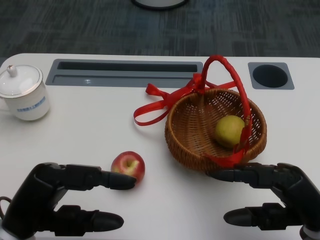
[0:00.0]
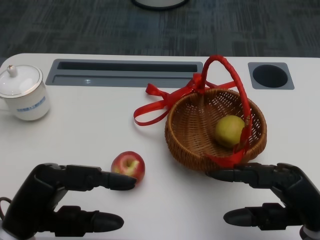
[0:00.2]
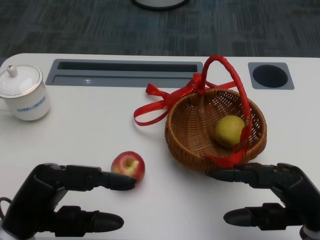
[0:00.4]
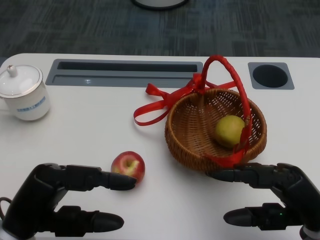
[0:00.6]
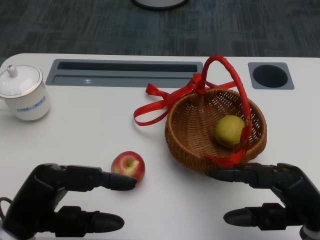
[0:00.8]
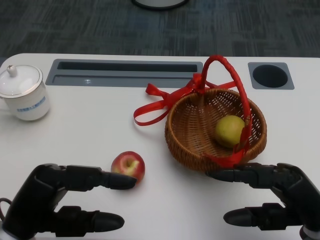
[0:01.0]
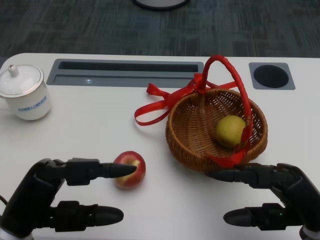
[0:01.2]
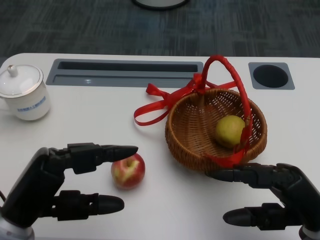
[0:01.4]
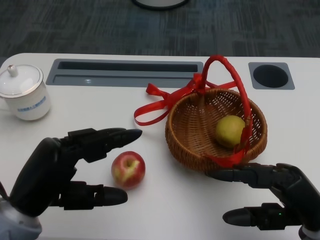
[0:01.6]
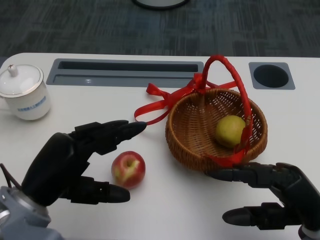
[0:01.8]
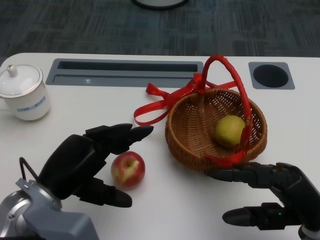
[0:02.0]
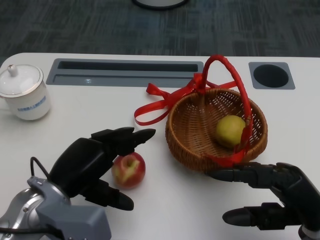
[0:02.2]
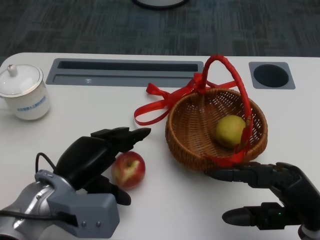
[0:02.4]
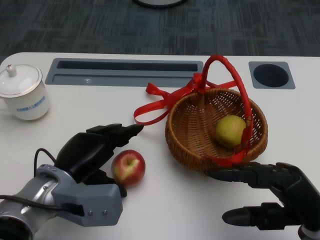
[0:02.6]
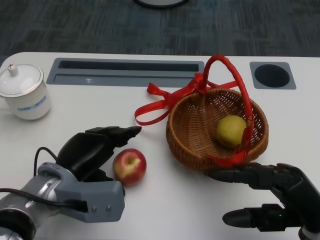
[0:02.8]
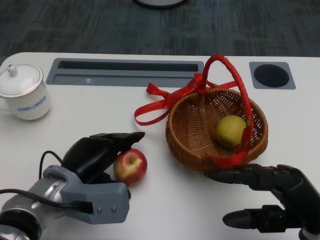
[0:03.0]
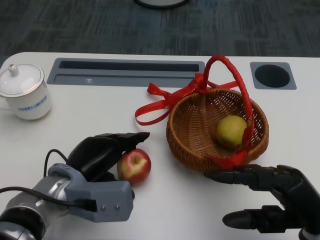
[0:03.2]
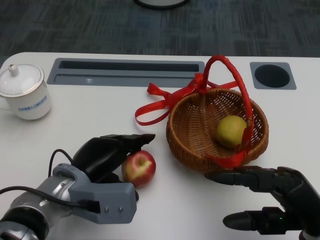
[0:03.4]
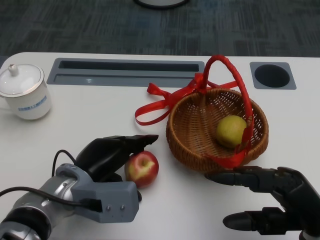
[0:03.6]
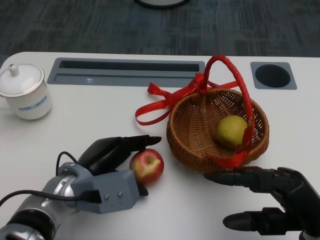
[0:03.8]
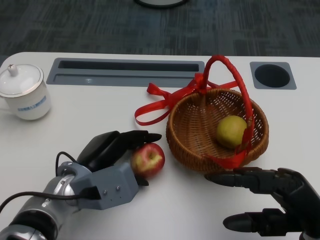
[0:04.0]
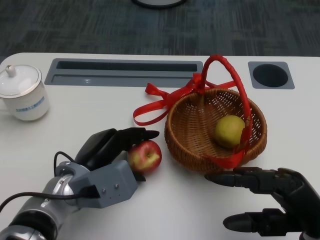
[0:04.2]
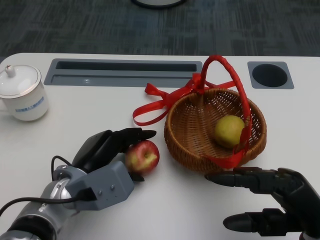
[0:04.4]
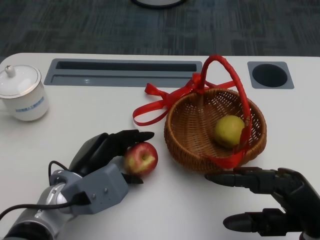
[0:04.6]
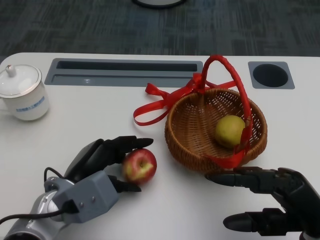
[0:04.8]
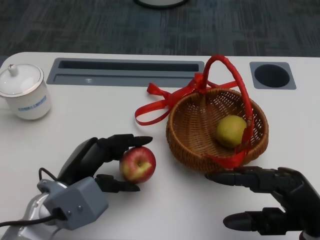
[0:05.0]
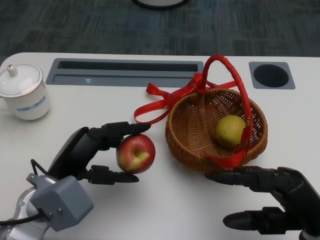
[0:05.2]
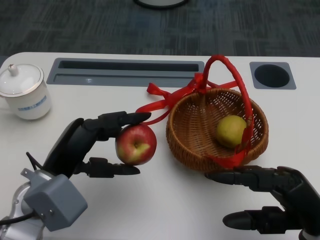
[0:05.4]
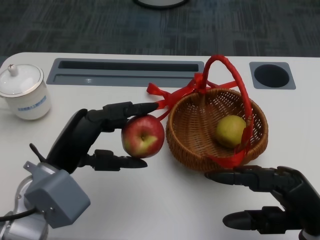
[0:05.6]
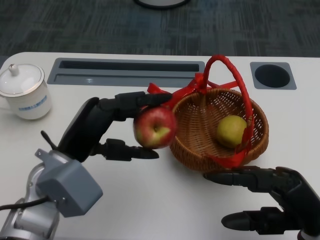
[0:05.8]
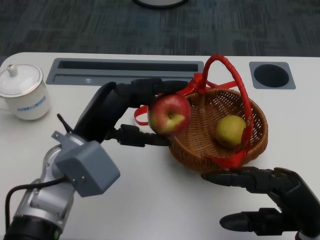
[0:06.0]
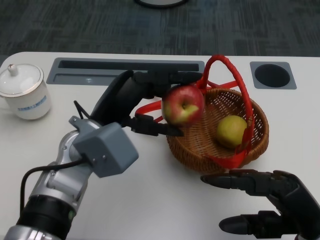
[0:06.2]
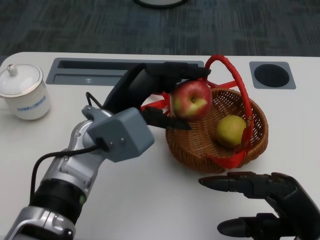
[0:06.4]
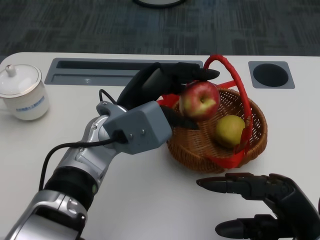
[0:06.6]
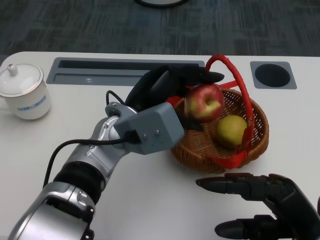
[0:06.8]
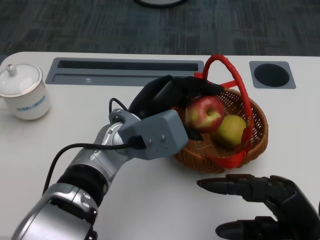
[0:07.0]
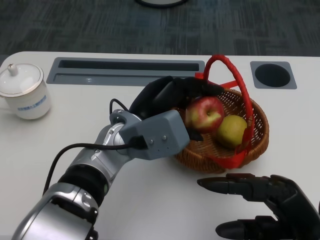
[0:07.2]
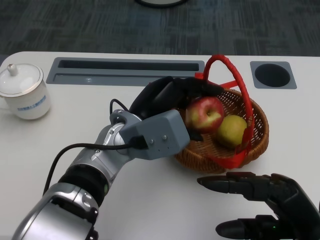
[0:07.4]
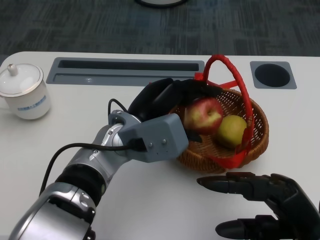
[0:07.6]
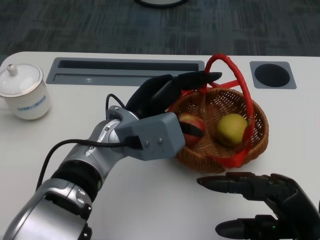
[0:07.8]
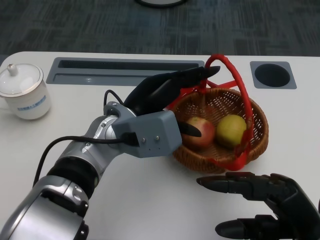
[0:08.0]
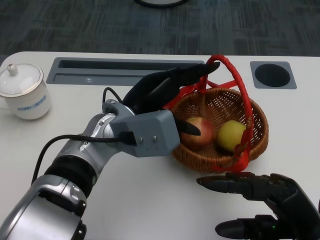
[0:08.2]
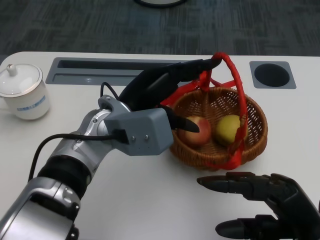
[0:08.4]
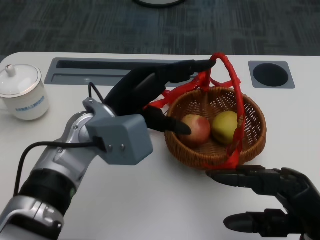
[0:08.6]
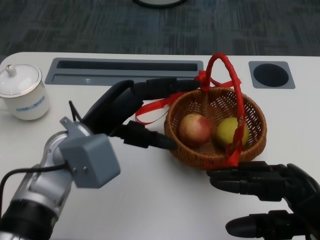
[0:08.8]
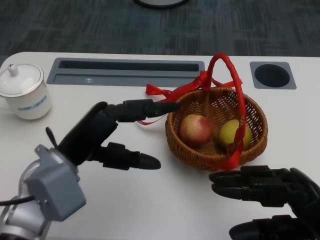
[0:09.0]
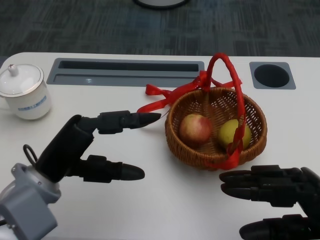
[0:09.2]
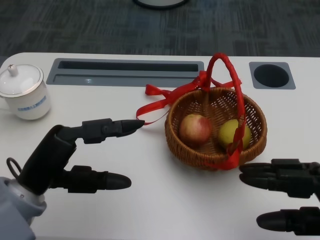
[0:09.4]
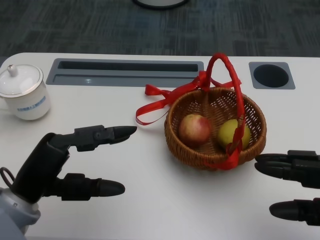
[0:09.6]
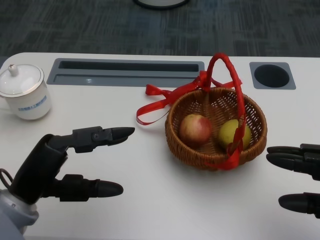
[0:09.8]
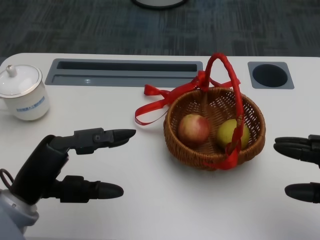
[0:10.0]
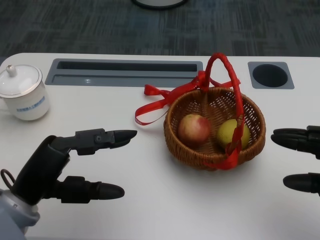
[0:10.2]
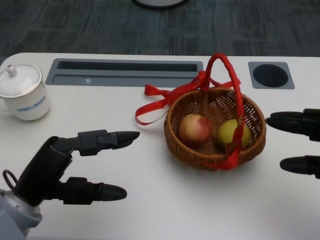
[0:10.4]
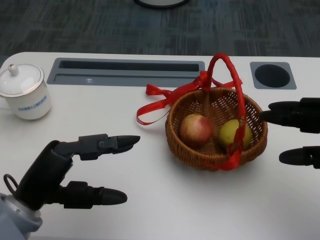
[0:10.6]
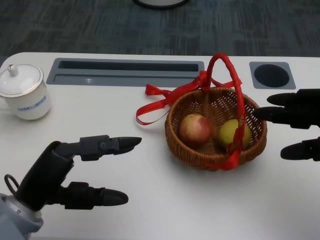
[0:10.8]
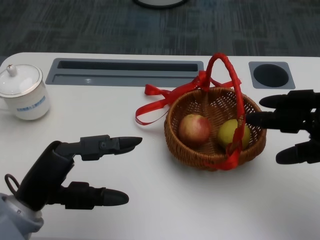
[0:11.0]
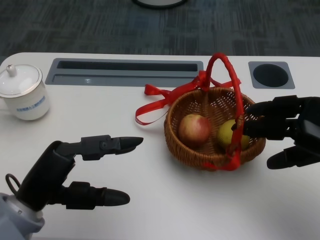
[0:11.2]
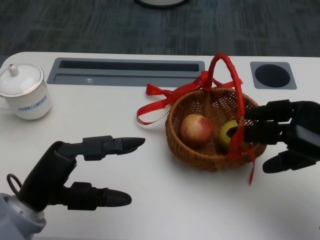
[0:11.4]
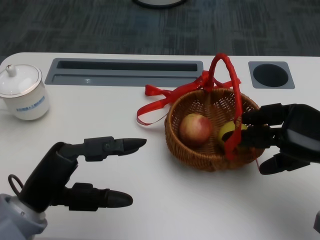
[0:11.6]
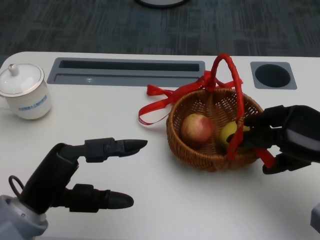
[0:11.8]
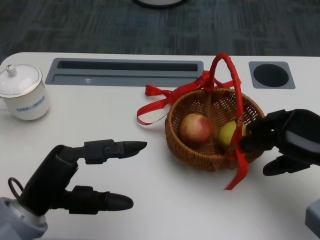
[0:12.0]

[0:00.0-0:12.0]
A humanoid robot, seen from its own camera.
Step, 1.0 to 3.8 s: Grasp the apple with the left gripper.
Step, 4.0 to 6.8 s: Place the apple into the basket with the left gripper.
Step, 7.0 to 10.4 s: Grasp the basket with the right gripper.
1.6 to 3.0 s: The left hand goes roughly 10 cm forward and downward.
4.4 to 6.0 s: The left hand travels upward by roughly 10 cm.
6.0 to 7.6 s: The left hand shifts approximately 10 cm to the right.
7.6 to 9.0 s: The left hand goes some 10 cm to the left.
9.0 to 10.4 s: The left hand is displaced to the left and backward by some 10 cm; the right hand goes some 5 cm to the right.
10.4 to 12.0 s: The right hand heads forward, covering approximately 5 cm.

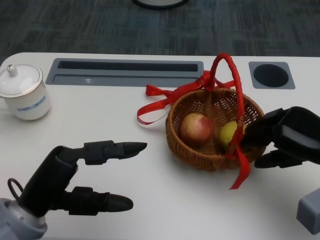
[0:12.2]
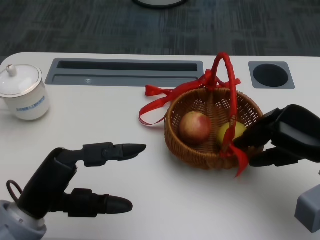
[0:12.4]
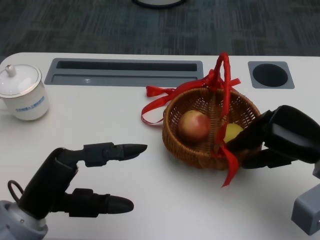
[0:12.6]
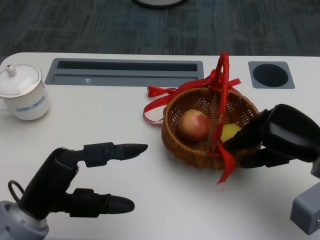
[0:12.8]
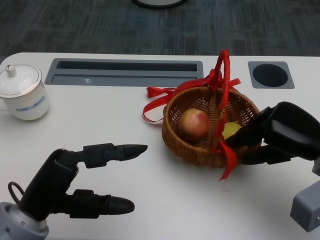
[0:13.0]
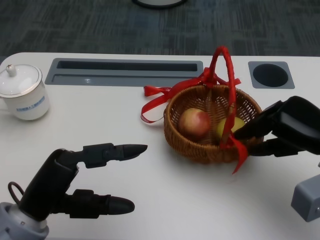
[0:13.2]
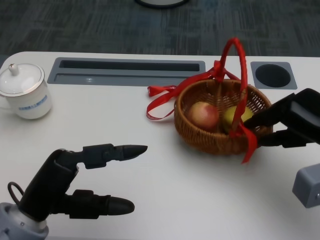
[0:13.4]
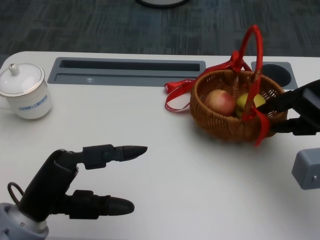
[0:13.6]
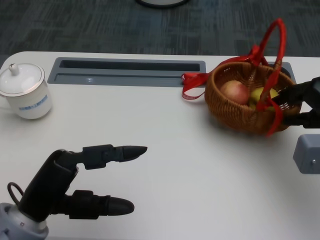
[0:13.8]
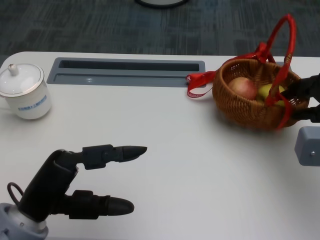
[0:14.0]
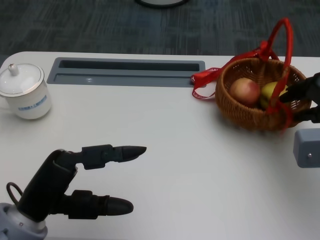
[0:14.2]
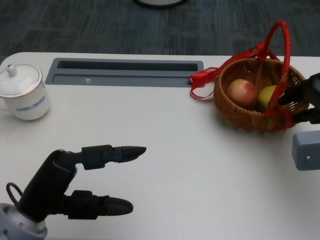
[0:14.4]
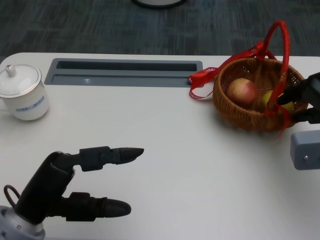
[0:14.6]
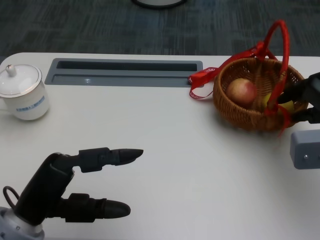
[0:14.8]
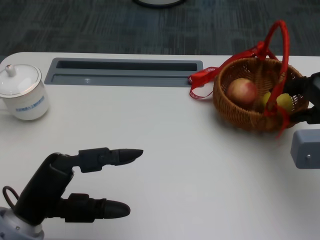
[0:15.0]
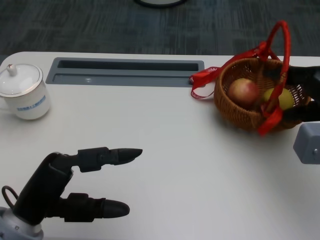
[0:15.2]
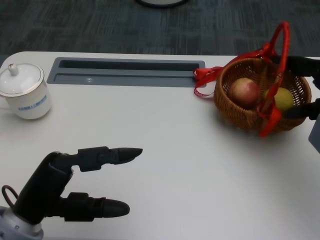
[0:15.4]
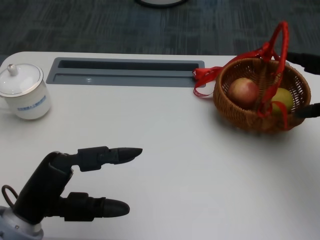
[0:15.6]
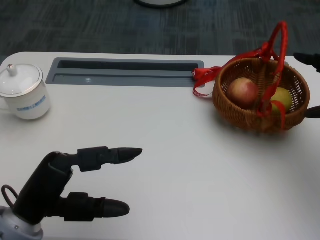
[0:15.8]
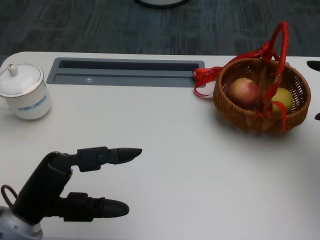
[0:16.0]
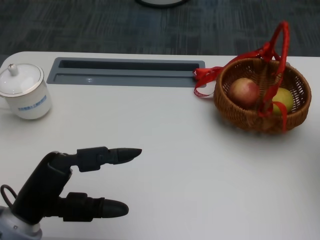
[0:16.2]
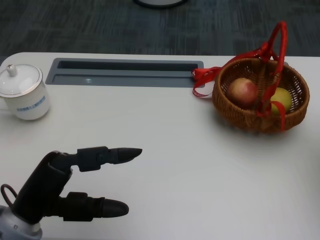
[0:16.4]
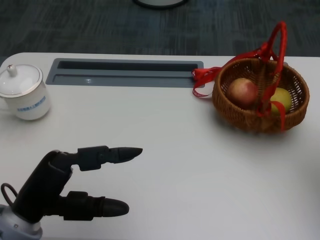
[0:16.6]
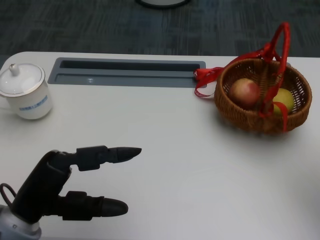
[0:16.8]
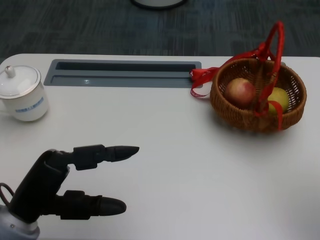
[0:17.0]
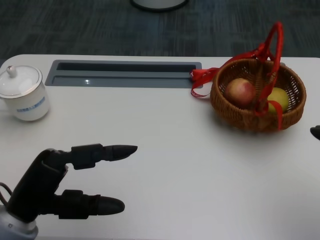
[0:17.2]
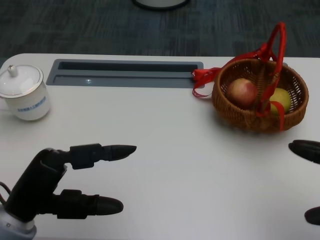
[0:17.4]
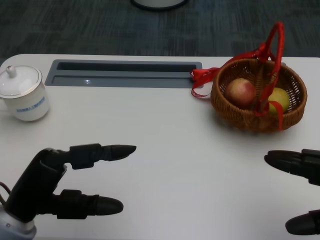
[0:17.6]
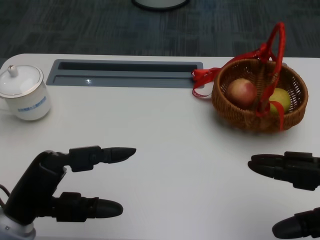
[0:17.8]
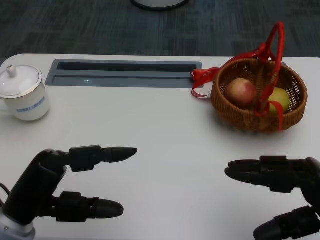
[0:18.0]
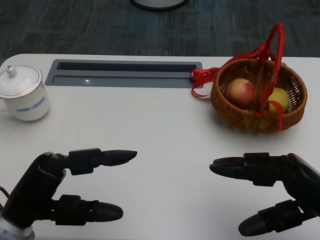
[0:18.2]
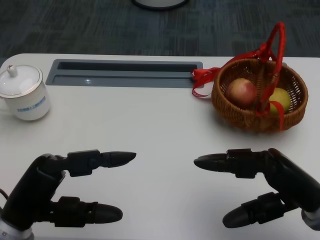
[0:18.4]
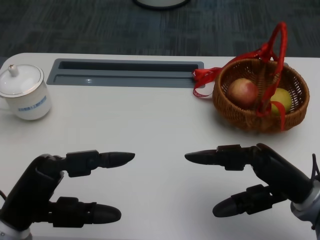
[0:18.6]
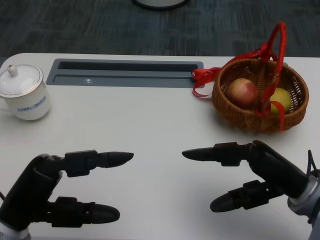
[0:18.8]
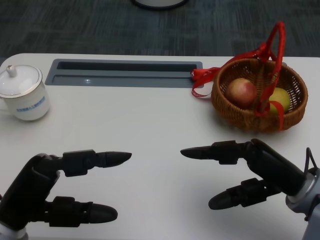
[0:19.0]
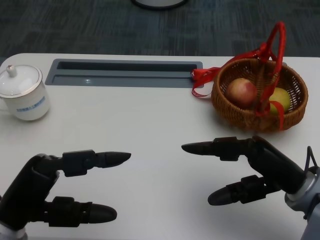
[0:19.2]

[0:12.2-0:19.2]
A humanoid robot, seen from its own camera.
13.6 to 15.0 s: The hands stay close to where they were, moving slightly.
15.0 to 16.4 s: The right hand travels to the right by roughly 10 cm.
16.4 to 17.8 s: The right hand moves backward and to the left, approximately 15 cm.
17.8 to 19.2 s: The right hand is displaced to the left and forward by approximately 10 cm.

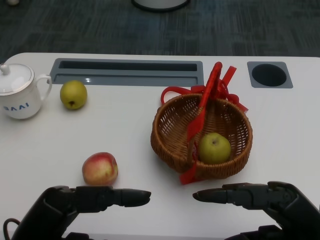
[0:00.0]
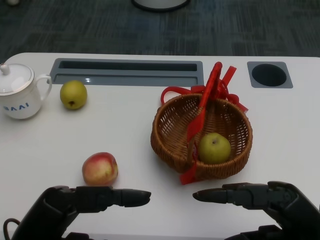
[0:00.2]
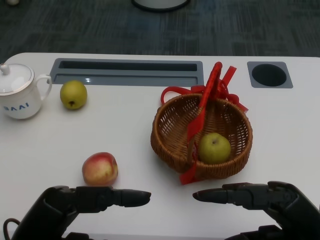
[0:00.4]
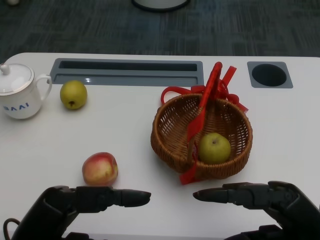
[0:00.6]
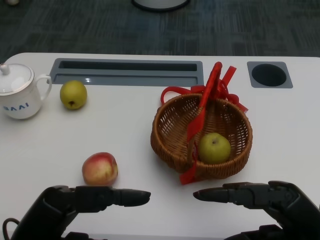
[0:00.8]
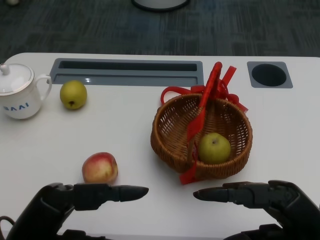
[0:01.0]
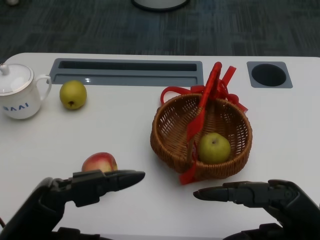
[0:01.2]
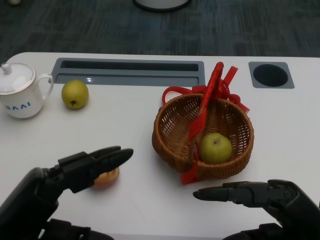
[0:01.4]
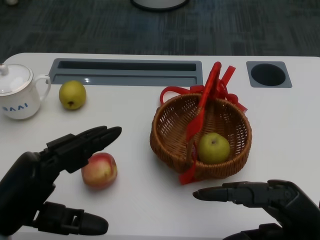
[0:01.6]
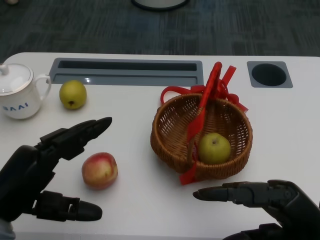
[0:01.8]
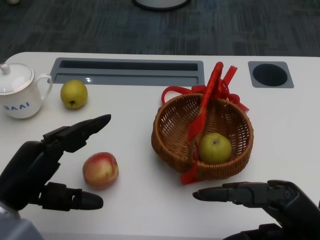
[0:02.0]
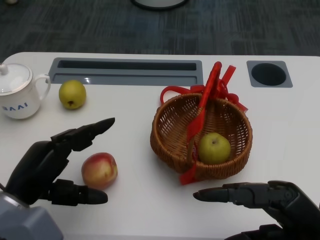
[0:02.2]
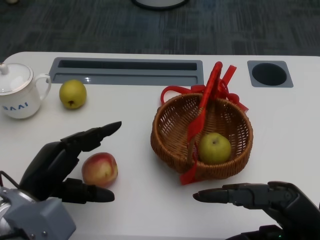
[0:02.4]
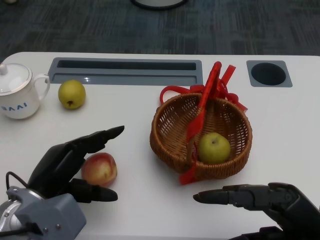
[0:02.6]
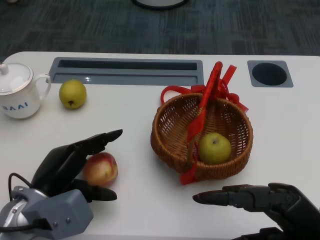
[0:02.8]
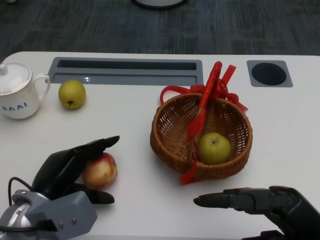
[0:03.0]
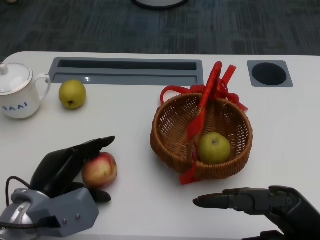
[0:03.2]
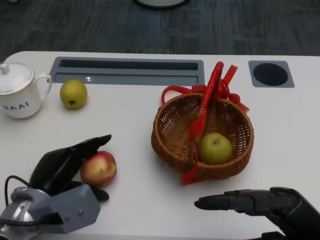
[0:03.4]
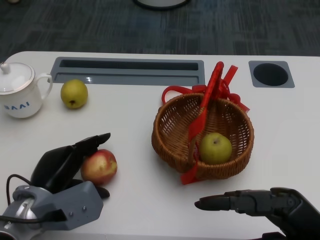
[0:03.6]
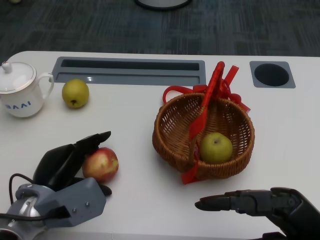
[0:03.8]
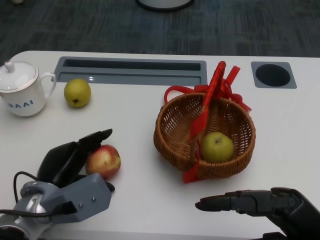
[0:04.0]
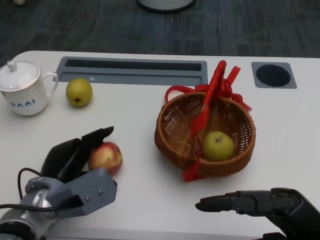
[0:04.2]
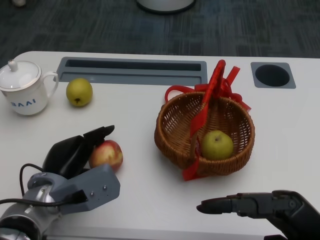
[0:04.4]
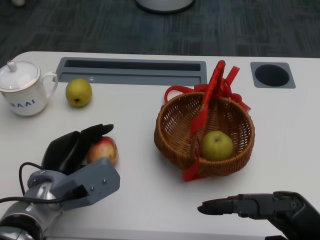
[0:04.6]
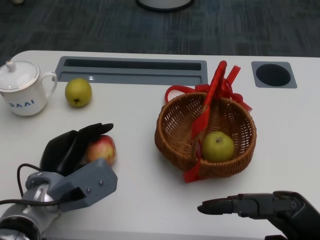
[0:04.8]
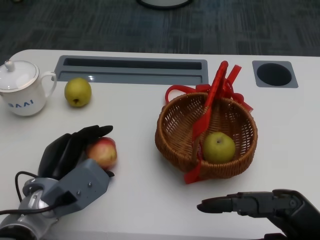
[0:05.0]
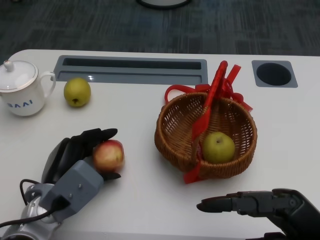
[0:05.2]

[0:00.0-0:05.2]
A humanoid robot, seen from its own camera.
Step, 0.8 to 3.8 s: Grasp the apple with the left gripper.
1.8 to 3.4 s: The left hand travels downward and forward by roughly 10 cm.
